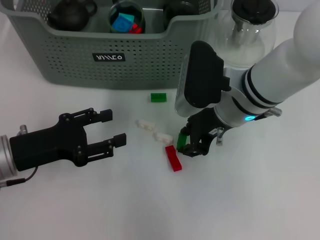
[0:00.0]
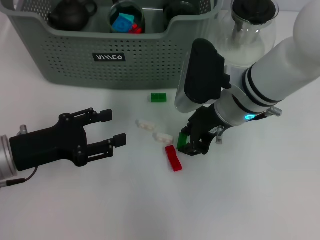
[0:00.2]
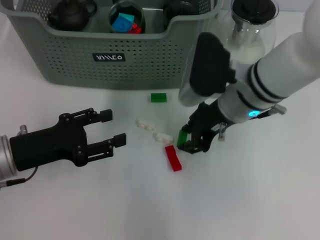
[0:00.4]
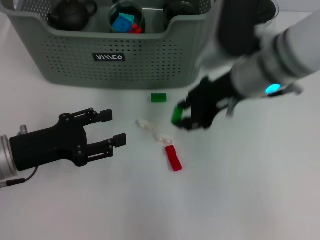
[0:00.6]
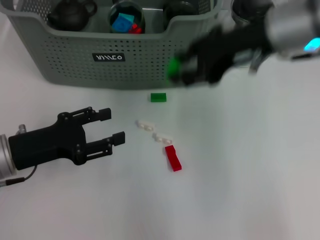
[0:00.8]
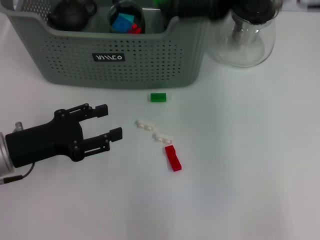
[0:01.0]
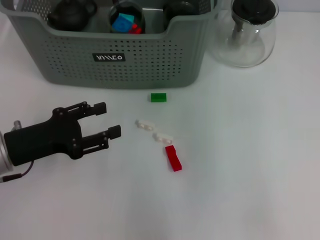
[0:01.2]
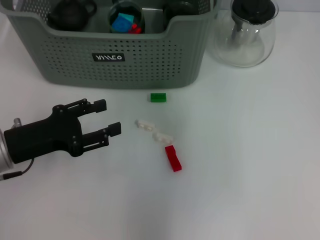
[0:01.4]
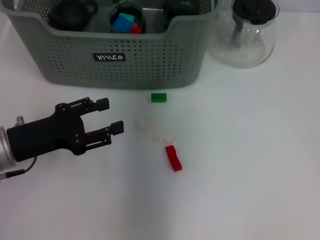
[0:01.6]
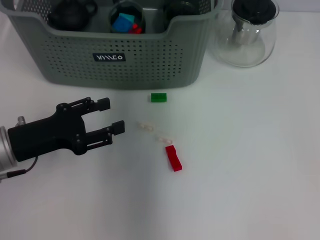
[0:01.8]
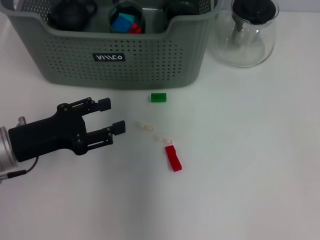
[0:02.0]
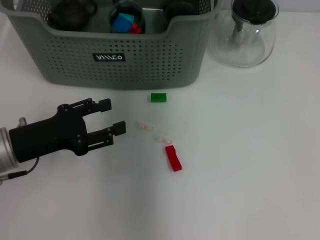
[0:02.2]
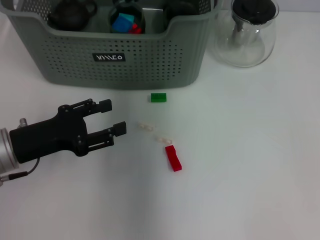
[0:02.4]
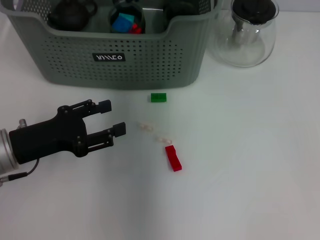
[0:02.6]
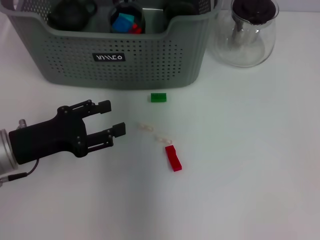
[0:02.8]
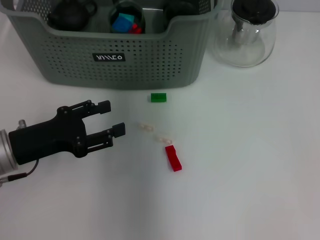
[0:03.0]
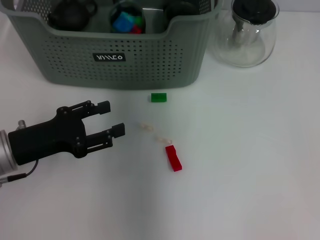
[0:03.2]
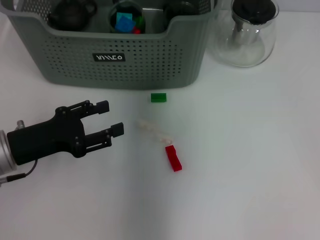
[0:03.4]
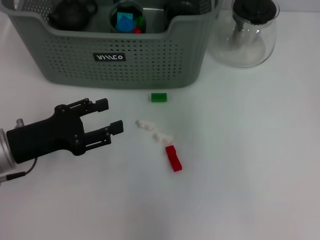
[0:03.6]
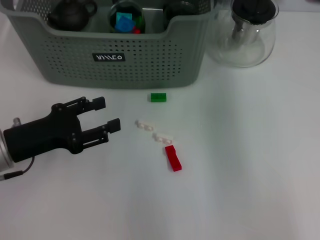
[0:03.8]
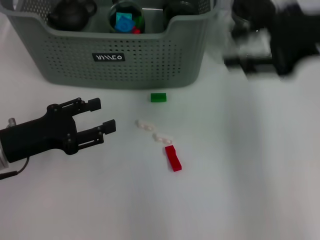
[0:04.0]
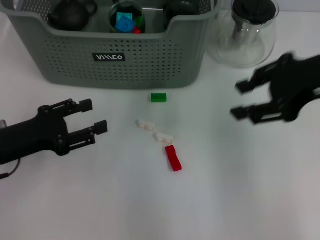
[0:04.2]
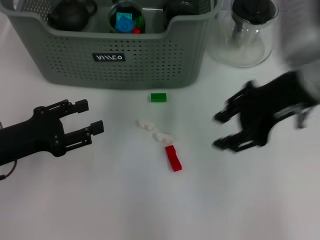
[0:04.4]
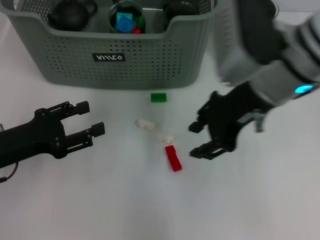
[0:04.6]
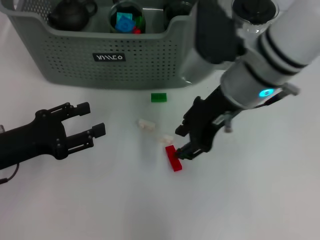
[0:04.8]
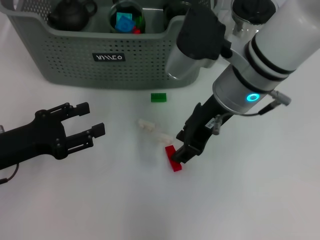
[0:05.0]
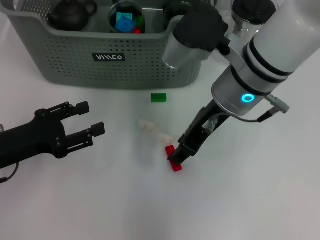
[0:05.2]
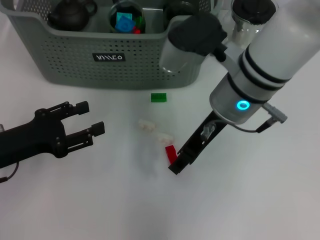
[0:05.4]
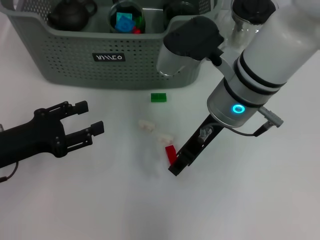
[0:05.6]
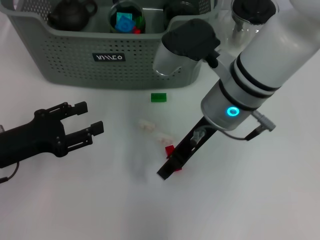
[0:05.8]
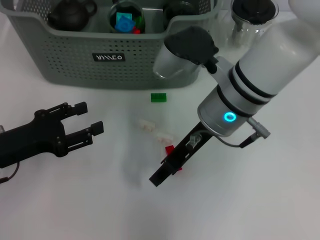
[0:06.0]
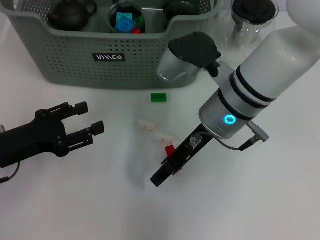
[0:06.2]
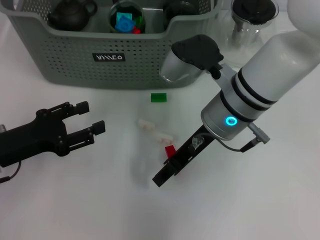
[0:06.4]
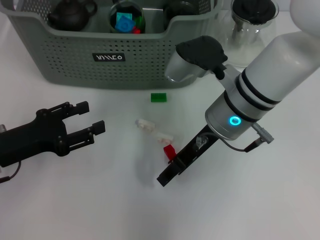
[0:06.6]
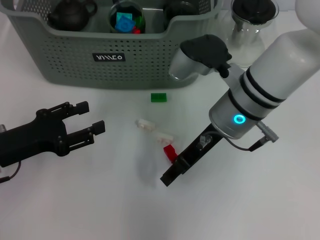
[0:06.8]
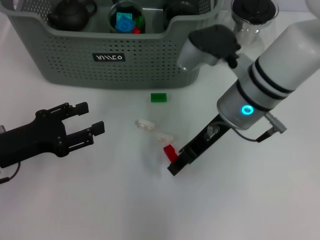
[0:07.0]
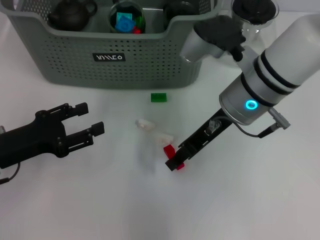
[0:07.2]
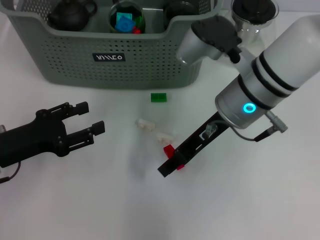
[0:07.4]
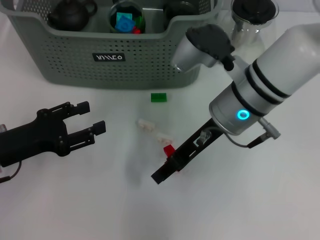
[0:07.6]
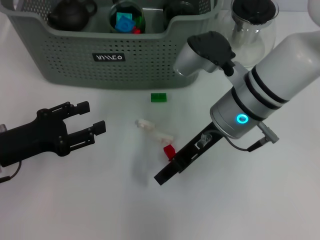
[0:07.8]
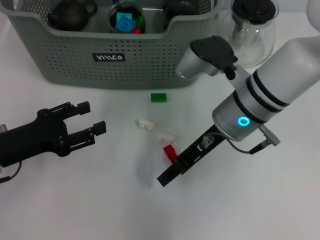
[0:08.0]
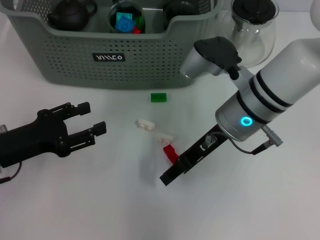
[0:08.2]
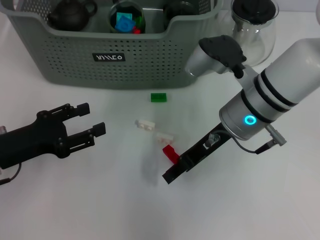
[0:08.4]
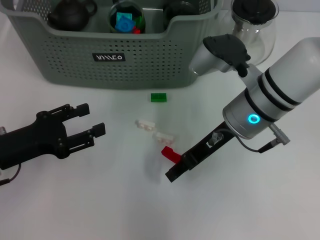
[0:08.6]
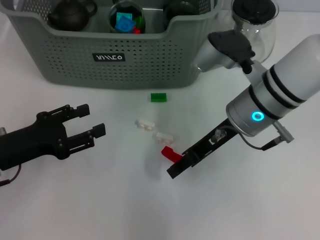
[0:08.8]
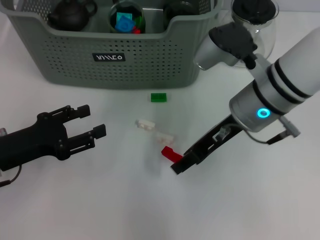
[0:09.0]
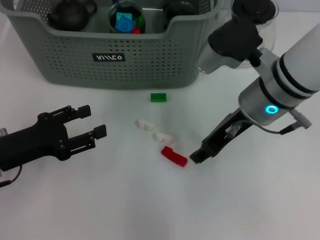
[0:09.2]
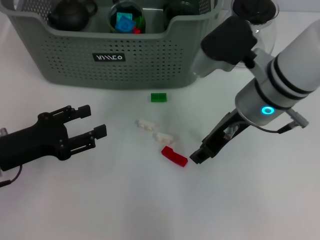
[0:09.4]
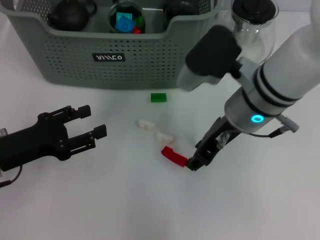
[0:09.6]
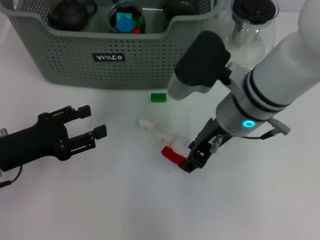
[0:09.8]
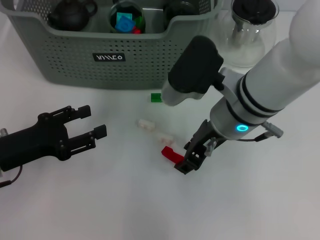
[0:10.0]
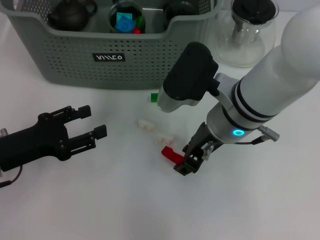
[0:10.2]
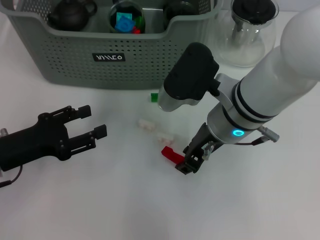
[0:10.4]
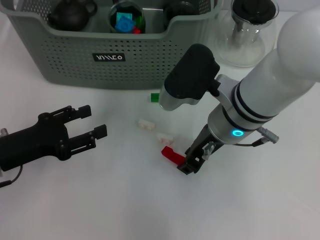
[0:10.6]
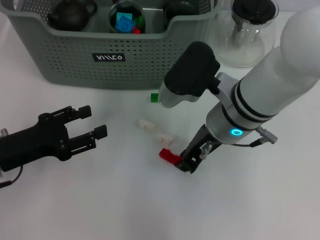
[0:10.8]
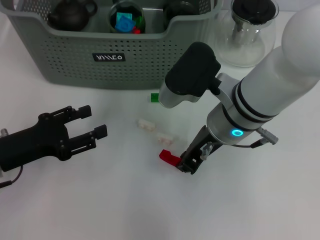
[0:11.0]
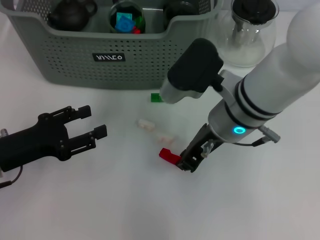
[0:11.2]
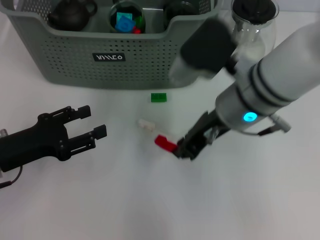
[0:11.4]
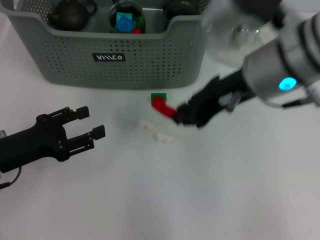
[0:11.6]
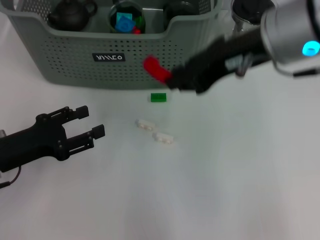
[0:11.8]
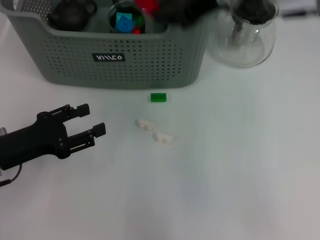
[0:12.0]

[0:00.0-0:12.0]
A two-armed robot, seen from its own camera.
Task of the whole recording: pick up the teacup on the table and place it into the storage bin, pick up the block on the table and place it into the storage bin.
Step, 0:00.0 to 0:03.6: Place the green block in the storage box with right gripper.
Step, 0:03.8 to 0:11.2: Grasp the red block with right gripper.
0:00.0 to 0:01.6: The right gripper is displaced upward and forward by approximately 20 cm.
0:01.6 to 0:03.0: The right gripper heads downward, covering approximately 5 cm.
0:03.0 to 0:04.4: The right gripper is displaced backward and to the right by some 20 cm.
0:04.4 to 0:06.0: The right gripper is displaced to the left and downward by approximately 15 cm.
0:06.0 to 0:09.0: The grippers make only small movements.
0:10.4 to 0:12.0: The right gripper travels upward by approximately 20 cm, and closes its fingers.

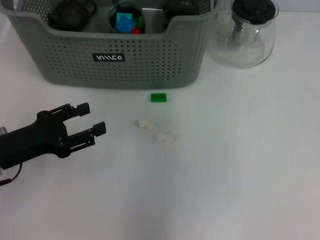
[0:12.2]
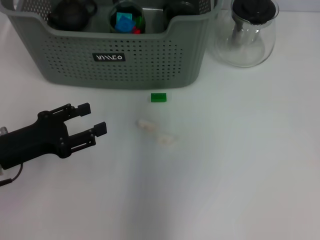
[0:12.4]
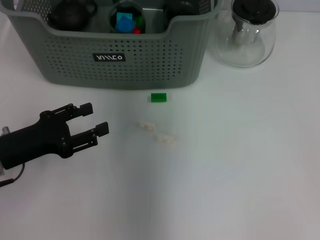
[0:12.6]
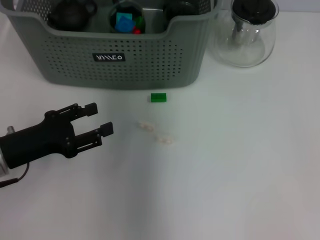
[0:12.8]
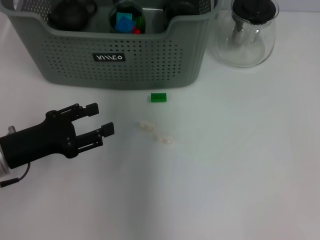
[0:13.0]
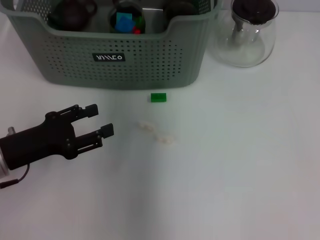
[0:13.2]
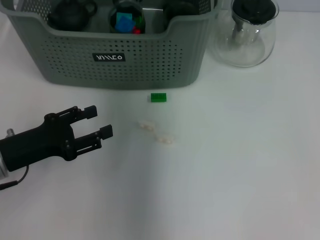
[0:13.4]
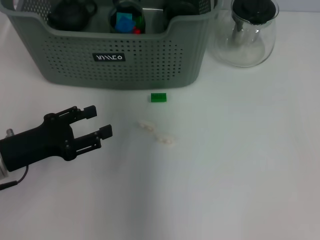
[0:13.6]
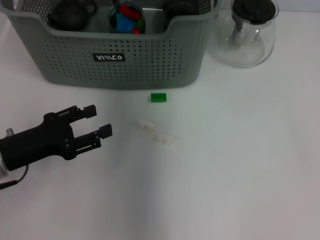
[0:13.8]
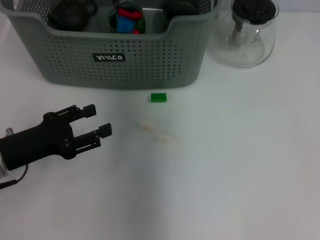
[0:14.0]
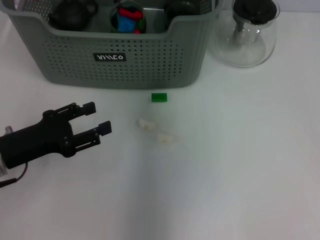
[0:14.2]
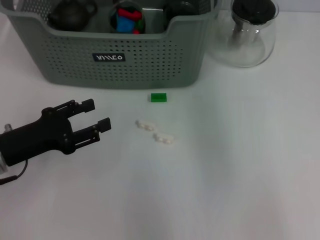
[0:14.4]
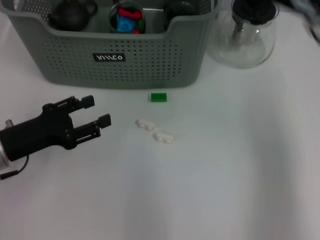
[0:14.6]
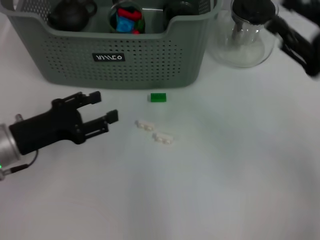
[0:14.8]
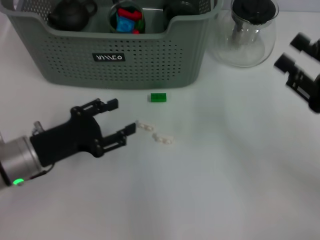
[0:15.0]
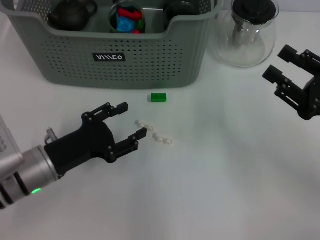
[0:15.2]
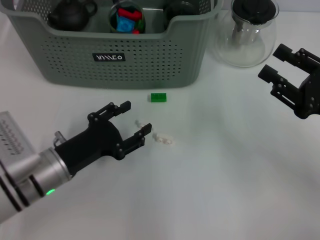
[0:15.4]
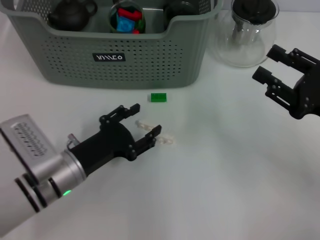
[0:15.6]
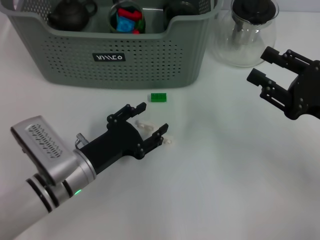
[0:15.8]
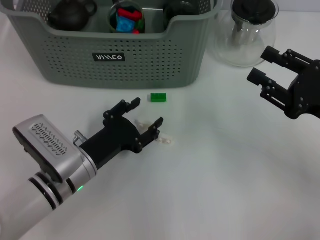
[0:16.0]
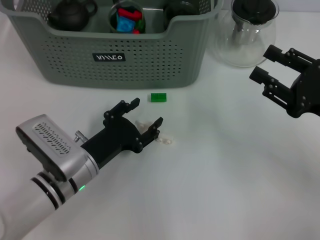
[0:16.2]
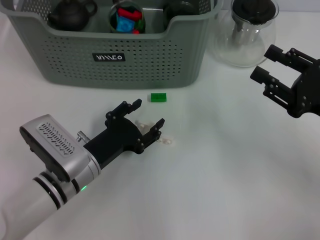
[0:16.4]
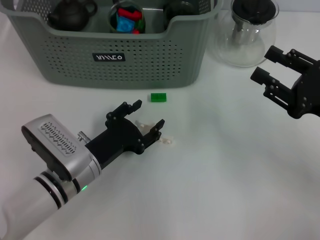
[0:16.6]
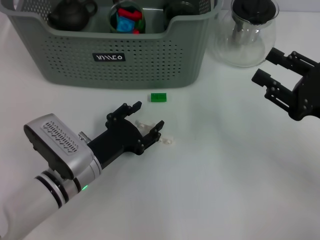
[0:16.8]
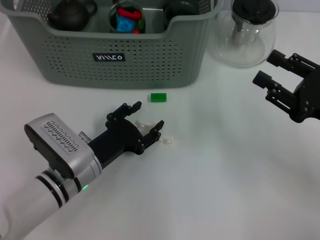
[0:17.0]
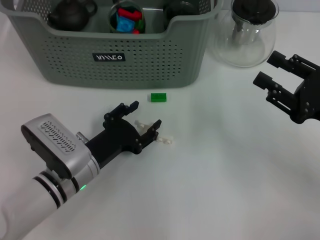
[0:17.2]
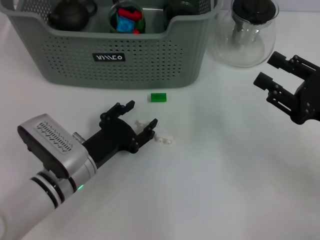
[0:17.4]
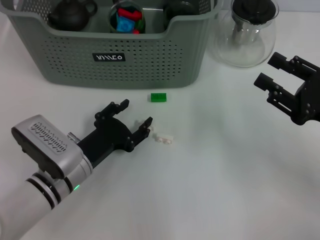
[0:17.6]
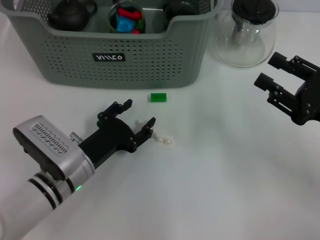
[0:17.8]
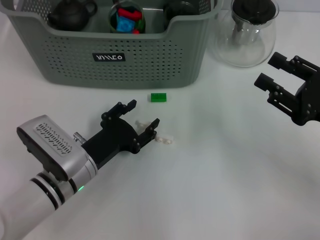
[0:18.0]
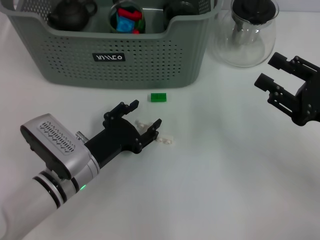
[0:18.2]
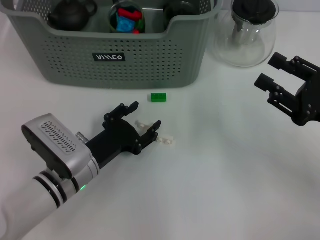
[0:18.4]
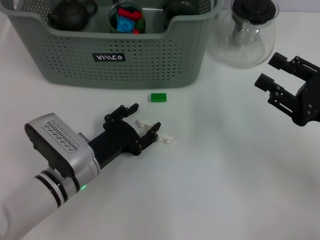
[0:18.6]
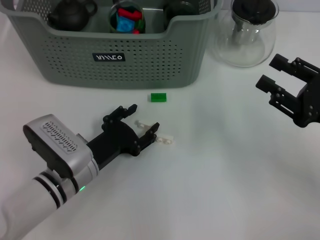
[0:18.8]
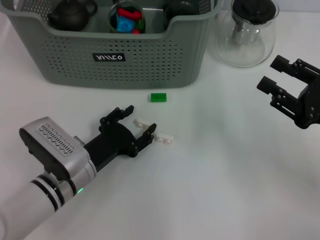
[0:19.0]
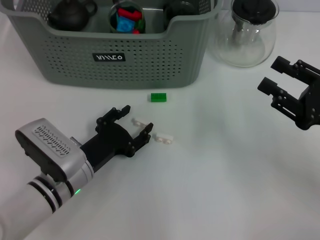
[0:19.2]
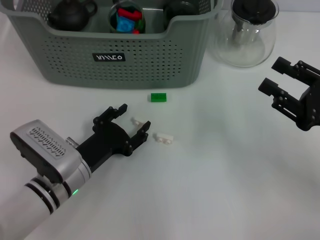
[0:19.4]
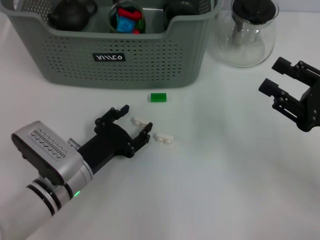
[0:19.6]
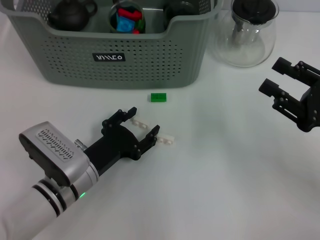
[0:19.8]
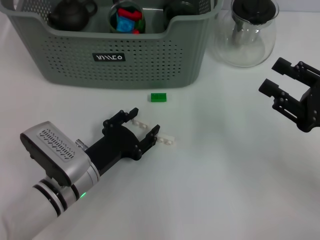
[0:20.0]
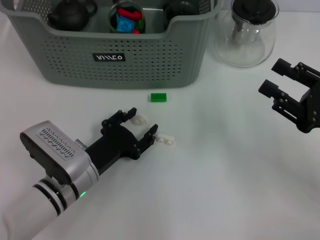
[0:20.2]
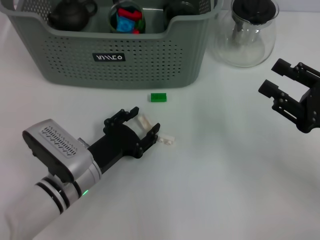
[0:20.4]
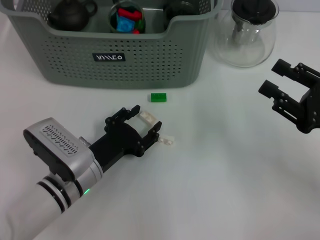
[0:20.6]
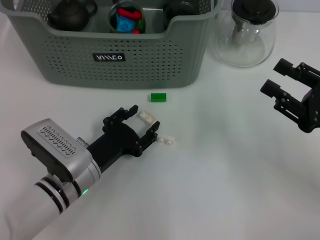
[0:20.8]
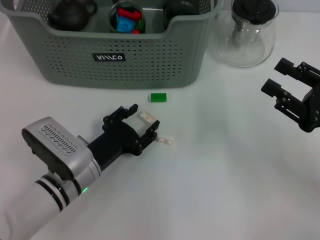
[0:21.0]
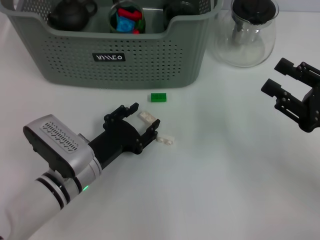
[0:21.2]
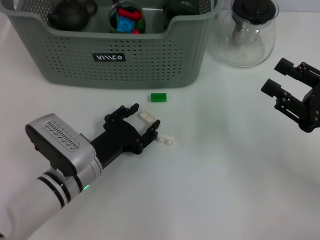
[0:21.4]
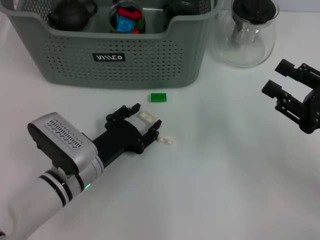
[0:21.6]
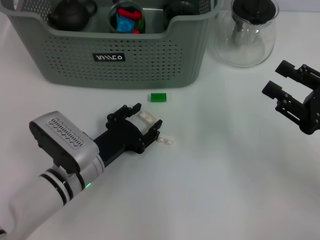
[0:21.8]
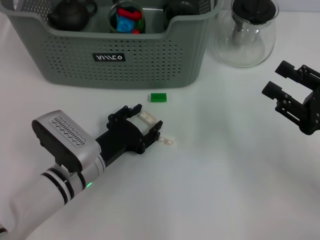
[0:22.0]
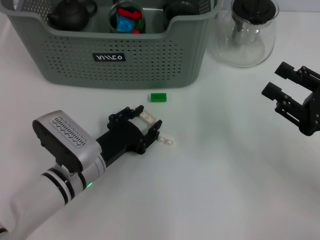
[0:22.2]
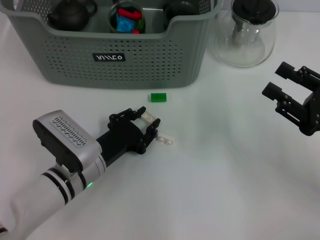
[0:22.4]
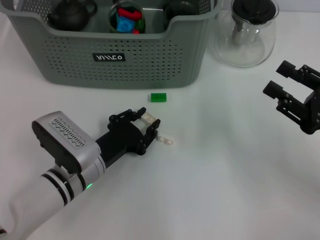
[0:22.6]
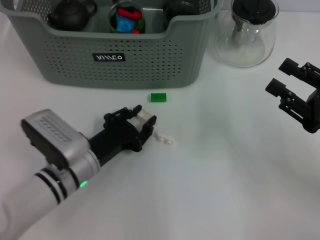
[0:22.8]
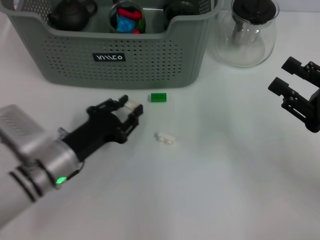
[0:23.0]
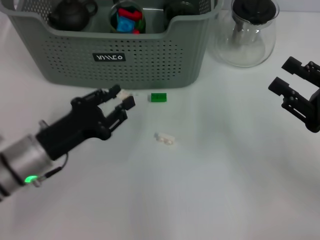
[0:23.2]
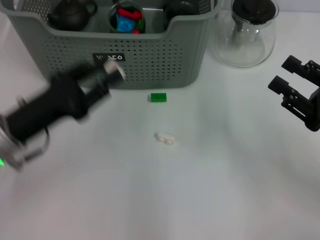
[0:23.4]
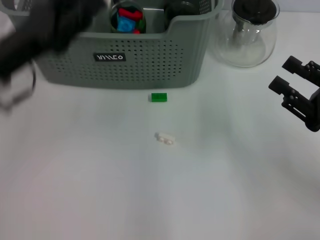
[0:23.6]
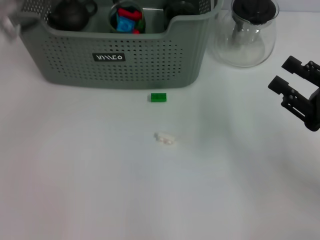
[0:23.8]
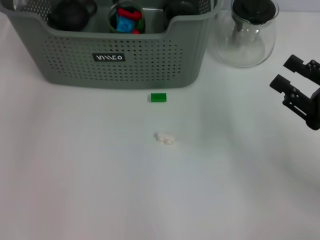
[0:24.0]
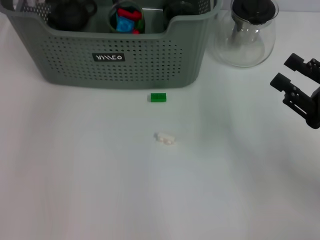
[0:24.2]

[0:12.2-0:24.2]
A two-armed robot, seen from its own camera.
Task of the whole recording: pick up the teacup on the table and place it into the storage bin, pick up the block on the table and place it into the storage bin.
Step, 0:12.2 to 0:14.6: Place the red block in the storage box with right gripper.
Step, 0:14.8 to 0:22.6: Grasp the white block with left gripper.
0:12.2 to 0:13.8: The right gripper heads forward, downward and to the left, covering approximately 10 cm.
0:13.8 to 0:15.2: The right gripper is displaced to the right, backward and downward by some 35 cm, and opens its fingers; the left gripper moves to the right, roughly 5 cm.
0:15.2 to 0:16.6: The left gripper heads to the right, covering roughly 5 cm.
0:16.6 to 0:18.2: Both grippers stay put.
0:18.2 to 0:19.8: The grippers make only small movements.
0:19.8 to 0:21.2: Neither gripper changes place.
0:21.2 to 0:22.6: Both grippers stay put.
0:22.6 to 0:24.2: The left gripper shifts some 30 cm upward and forward.
